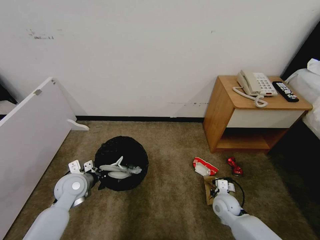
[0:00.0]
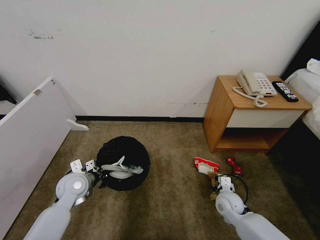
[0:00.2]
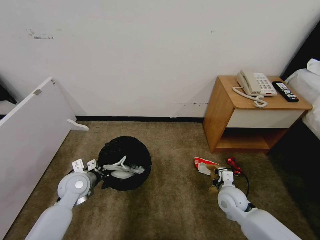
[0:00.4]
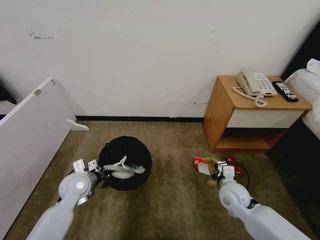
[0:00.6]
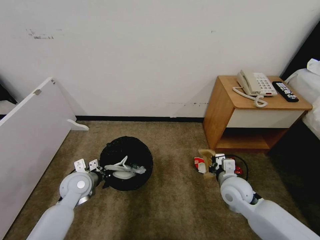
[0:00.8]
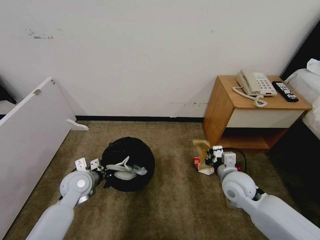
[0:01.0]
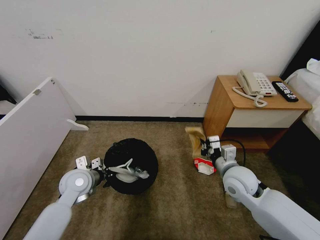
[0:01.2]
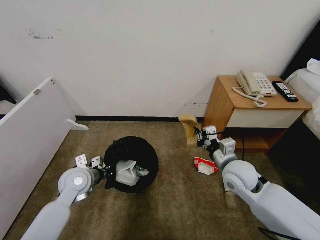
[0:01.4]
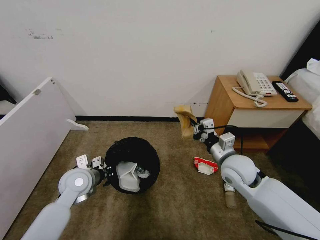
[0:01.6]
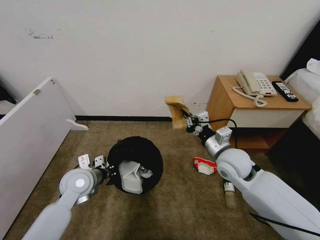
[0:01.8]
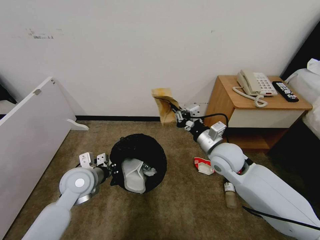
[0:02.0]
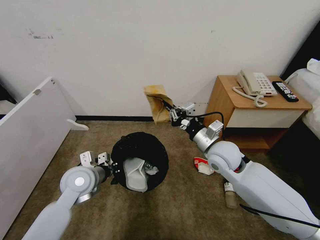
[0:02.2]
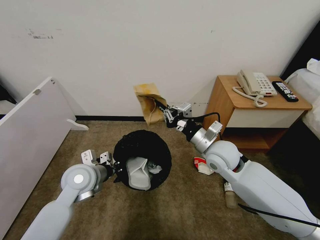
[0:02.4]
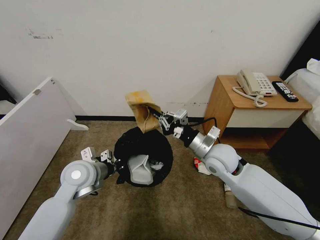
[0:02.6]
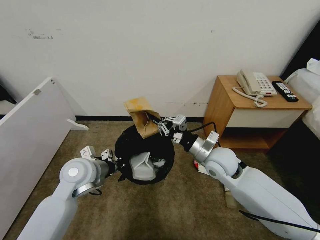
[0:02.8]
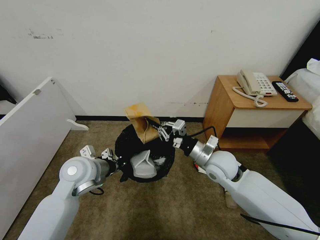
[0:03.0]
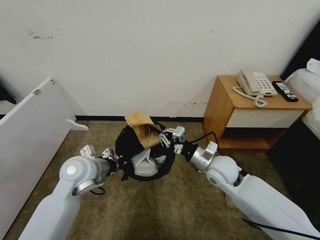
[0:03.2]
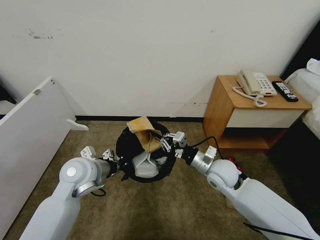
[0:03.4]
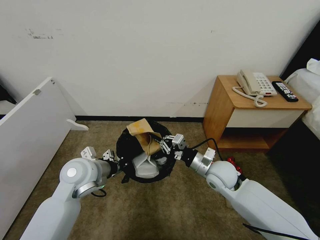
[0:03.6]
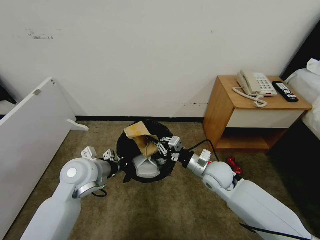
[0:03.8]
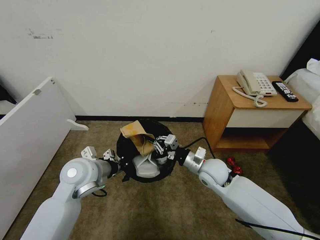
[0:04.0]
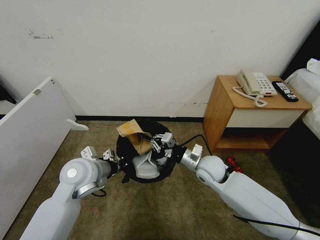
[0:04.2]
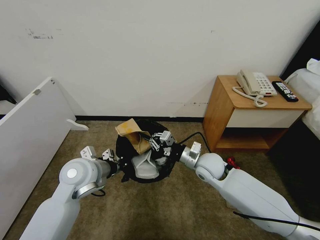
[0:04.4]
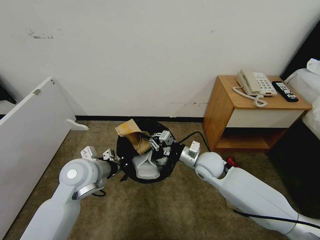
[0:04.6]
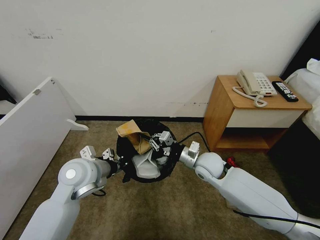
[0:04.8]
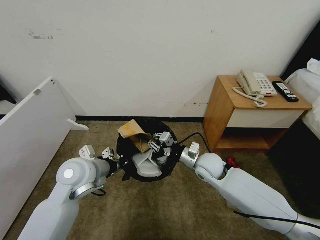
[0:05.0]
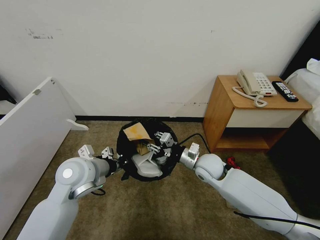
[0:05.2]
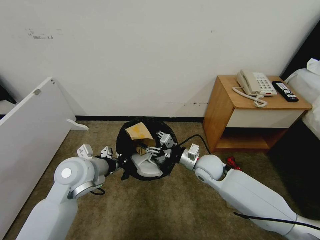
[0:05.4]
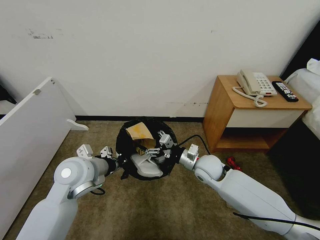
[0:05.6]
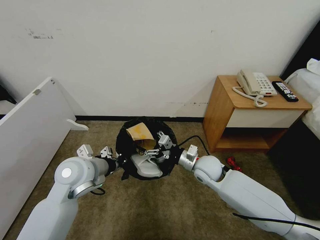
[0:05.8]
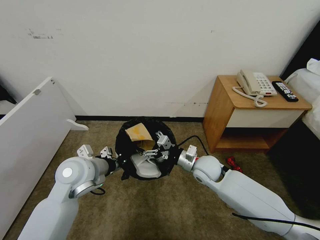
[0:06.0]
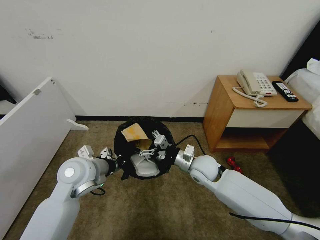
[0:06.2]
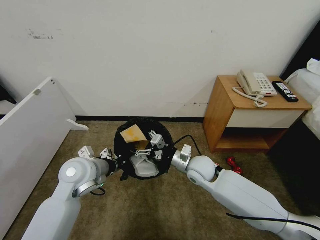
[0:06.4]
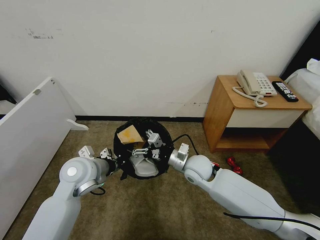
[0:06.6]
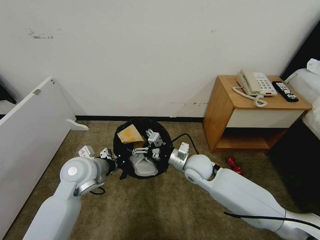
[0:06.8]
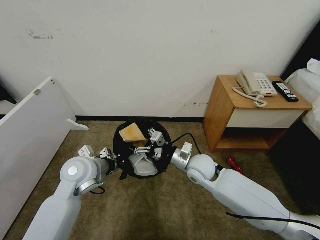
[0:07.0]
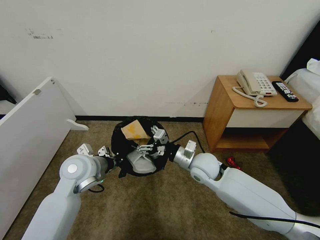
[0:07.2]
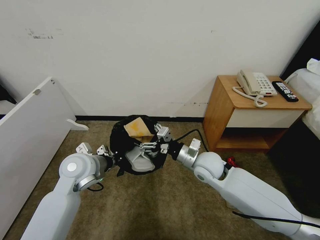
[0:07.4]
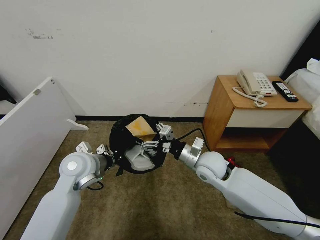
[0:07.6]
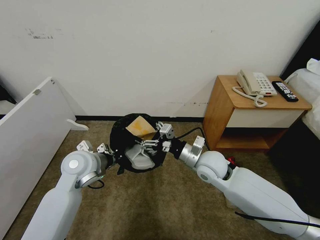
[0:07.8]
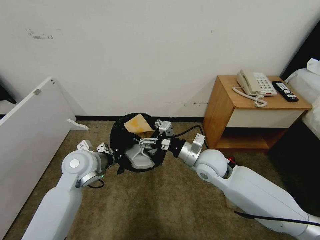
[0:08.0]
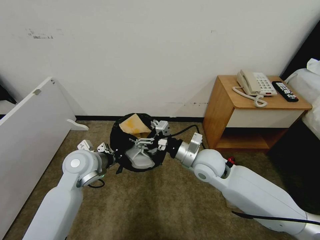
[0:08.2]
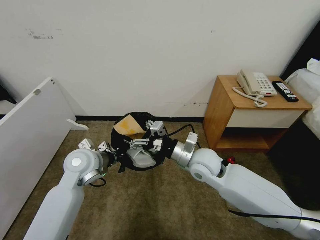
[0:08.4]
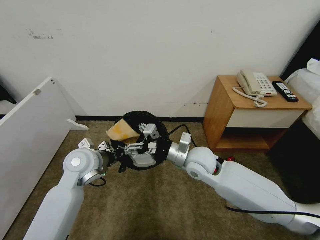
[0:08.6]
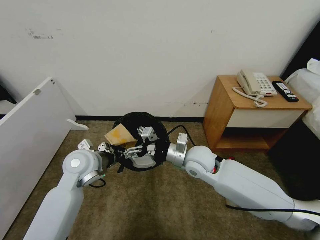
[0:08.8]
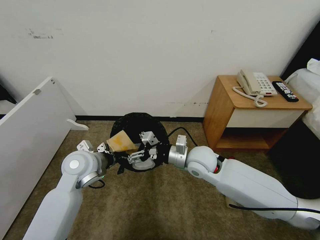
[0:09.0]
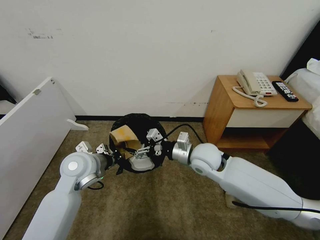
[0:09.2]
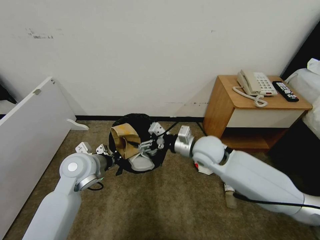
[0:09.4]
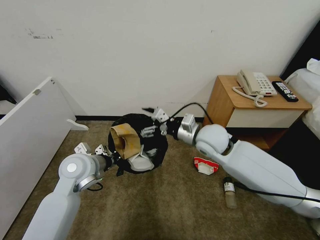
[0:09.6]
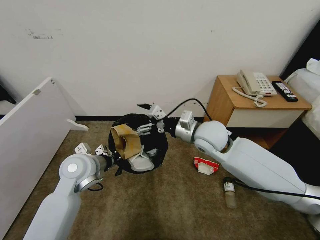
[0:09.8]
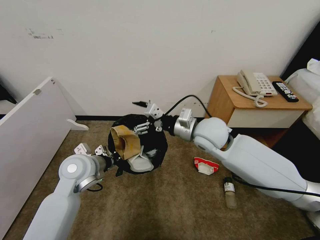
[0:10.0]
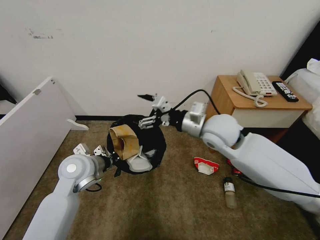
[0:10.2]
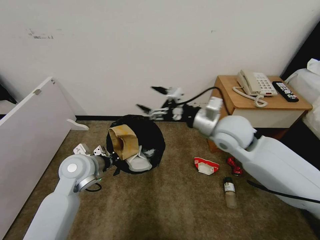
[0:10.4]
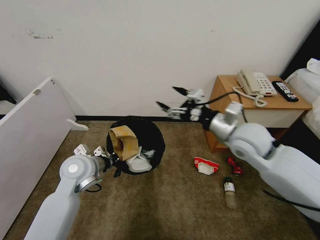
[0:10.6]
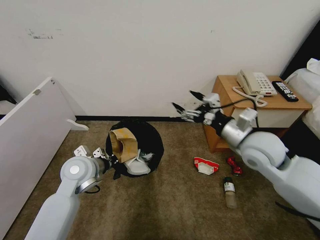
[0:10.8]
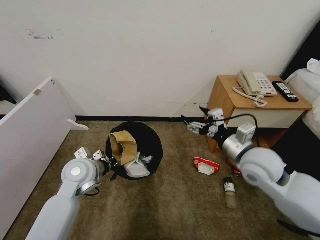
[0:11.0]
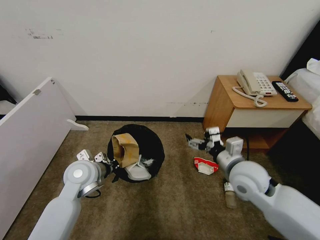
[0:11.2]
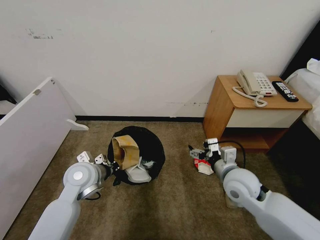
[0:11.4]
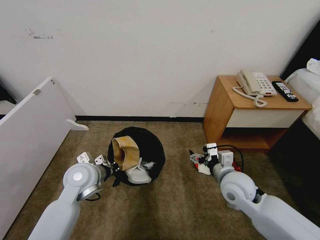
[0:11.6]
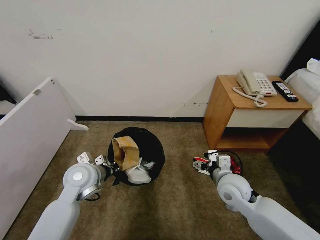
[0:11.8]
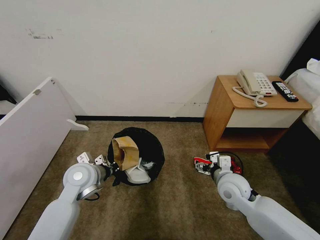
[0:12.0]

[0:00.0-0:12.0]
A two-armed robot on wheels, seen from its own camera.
Task of the whole recording: Pick up the trash bin, then pick up the garbage from the floor and place it into the trash bin.
0:00.0 to 0:01.6: The right gripper heads upward, covering some 20 cm.
0:01.6 to 0:03.0: The right gripper moves to the left, some 5 cm. The left gripper is displaced upward by roughly 5 cm.
0:03.0 to 0:04.4: The right gripper changes place by approximately 5 cm.
0:04.4 to 0:06.0: The right gripper opens.
0:06.0 to 0:07.6: There are only small adjustments of the grippers.
0:07.6 to 0:09.0: There are only small adjustments of the grippers.
0:09.0 to 0:10.4: The right gripper goes roughly 15 cm upward and to the right.
0:10.4 to 0:12.0: The right gripper goes about 20 cm downward.

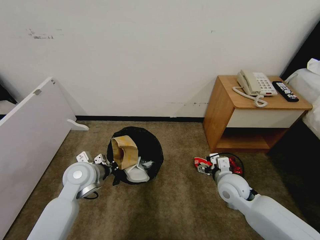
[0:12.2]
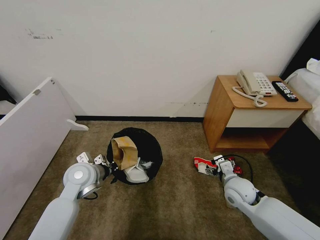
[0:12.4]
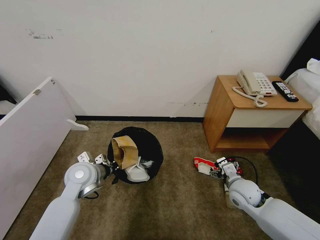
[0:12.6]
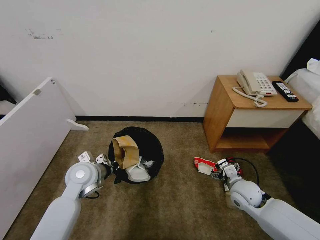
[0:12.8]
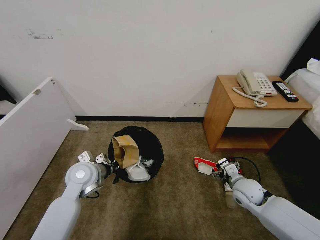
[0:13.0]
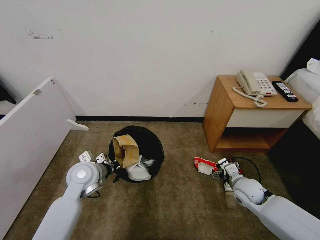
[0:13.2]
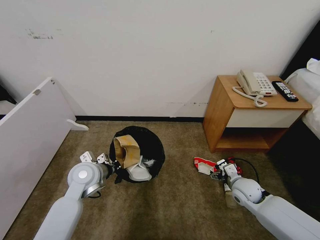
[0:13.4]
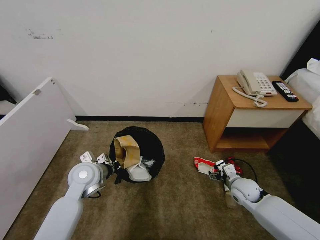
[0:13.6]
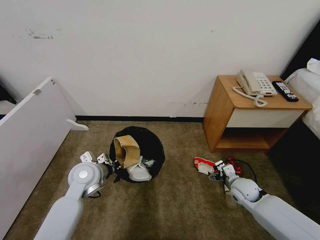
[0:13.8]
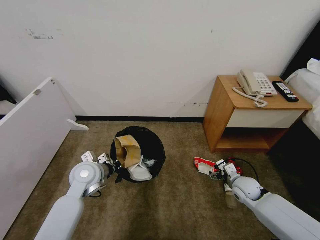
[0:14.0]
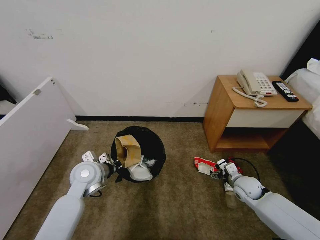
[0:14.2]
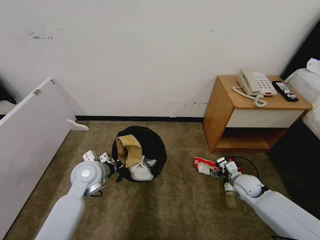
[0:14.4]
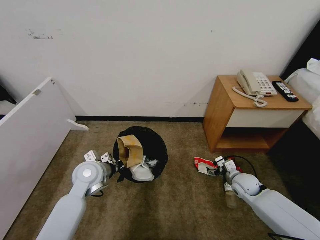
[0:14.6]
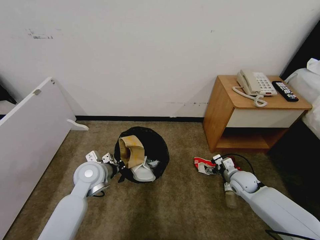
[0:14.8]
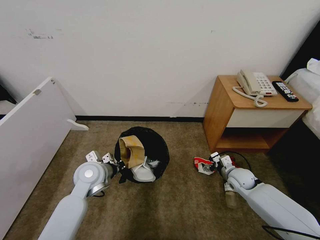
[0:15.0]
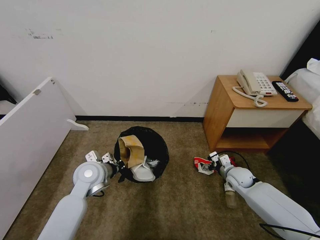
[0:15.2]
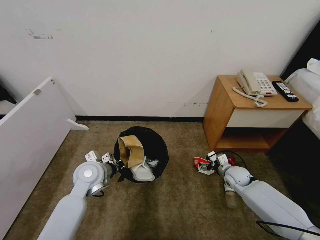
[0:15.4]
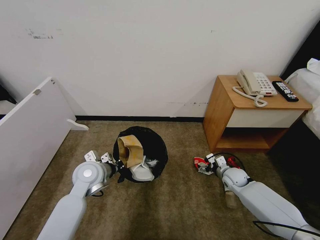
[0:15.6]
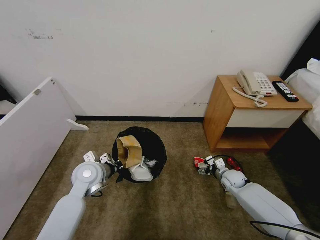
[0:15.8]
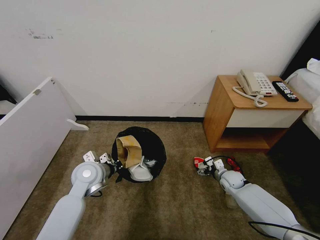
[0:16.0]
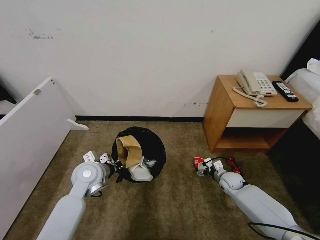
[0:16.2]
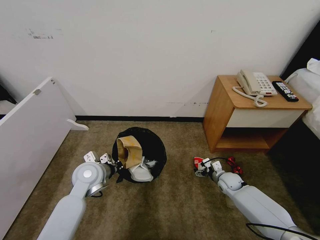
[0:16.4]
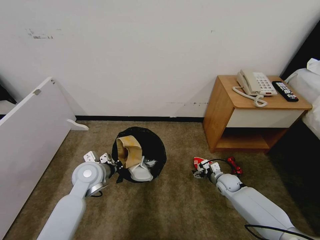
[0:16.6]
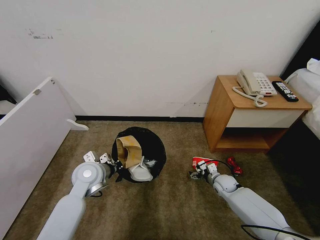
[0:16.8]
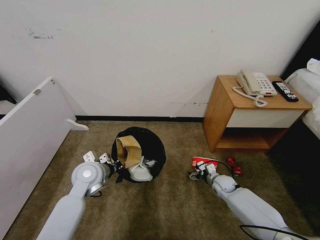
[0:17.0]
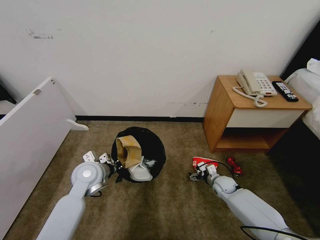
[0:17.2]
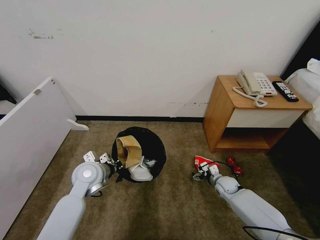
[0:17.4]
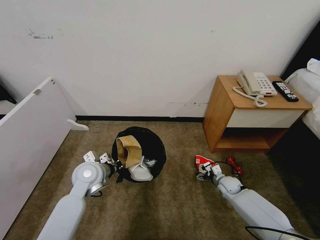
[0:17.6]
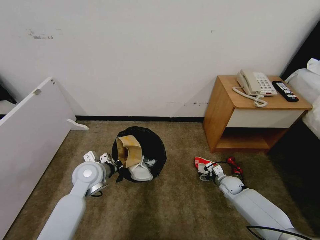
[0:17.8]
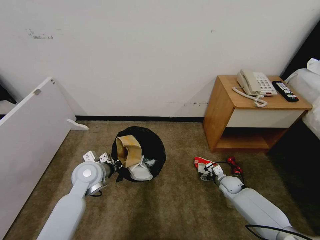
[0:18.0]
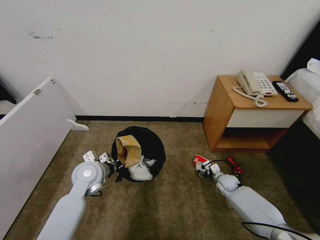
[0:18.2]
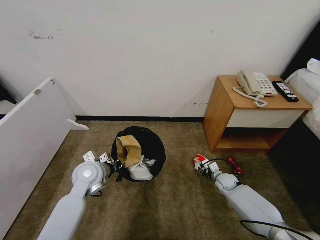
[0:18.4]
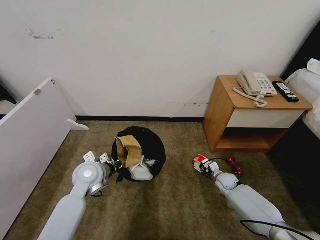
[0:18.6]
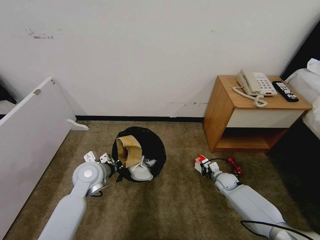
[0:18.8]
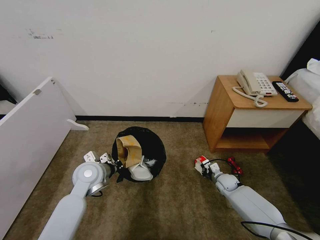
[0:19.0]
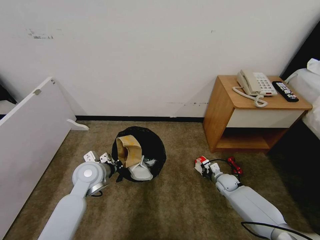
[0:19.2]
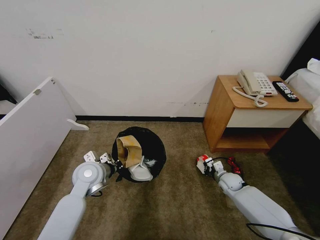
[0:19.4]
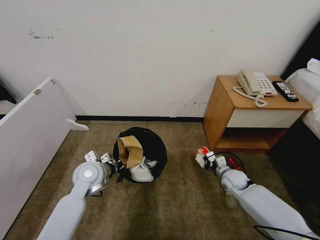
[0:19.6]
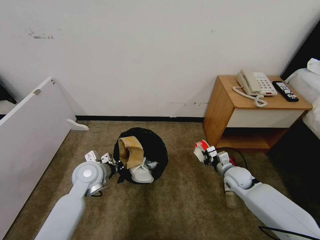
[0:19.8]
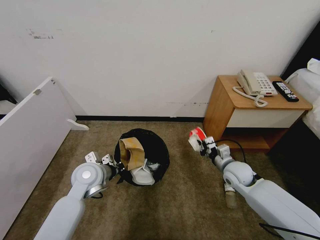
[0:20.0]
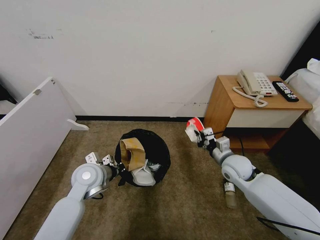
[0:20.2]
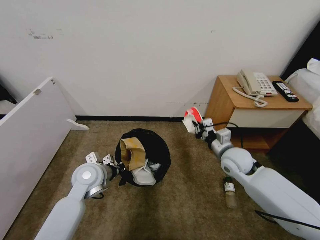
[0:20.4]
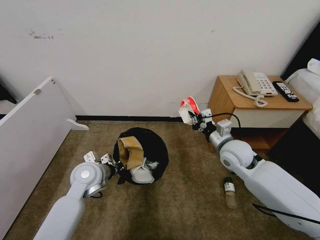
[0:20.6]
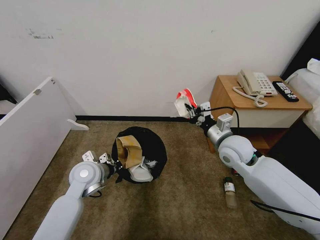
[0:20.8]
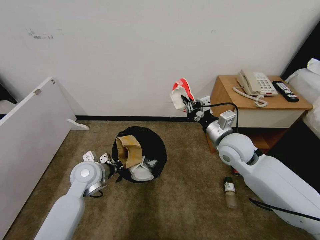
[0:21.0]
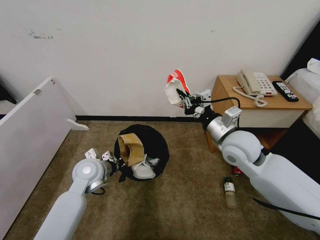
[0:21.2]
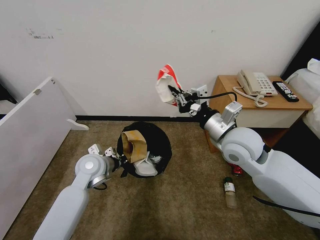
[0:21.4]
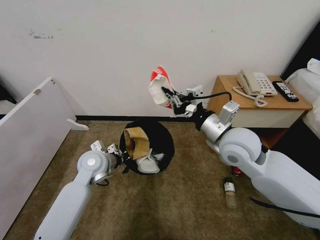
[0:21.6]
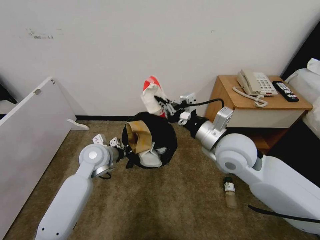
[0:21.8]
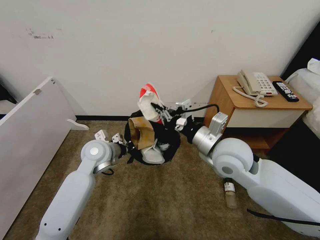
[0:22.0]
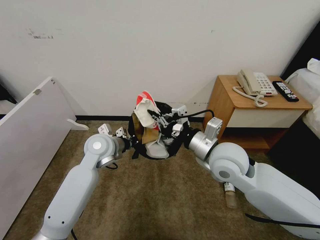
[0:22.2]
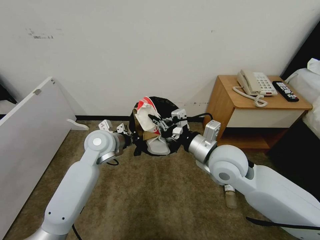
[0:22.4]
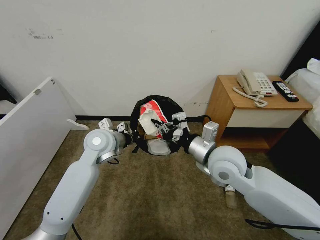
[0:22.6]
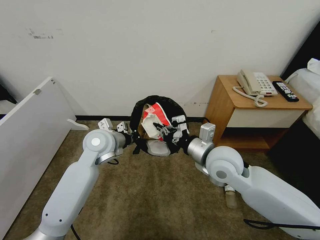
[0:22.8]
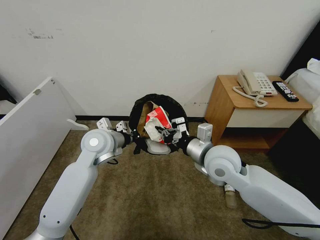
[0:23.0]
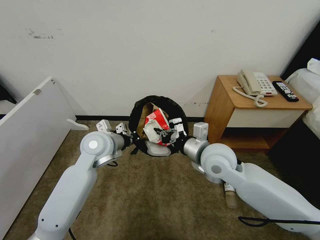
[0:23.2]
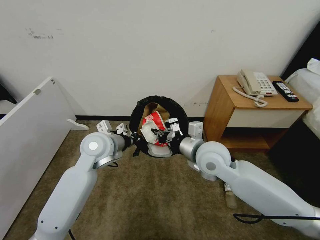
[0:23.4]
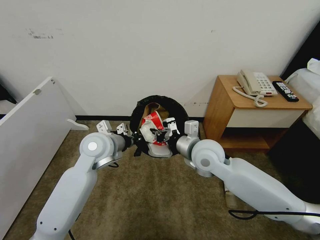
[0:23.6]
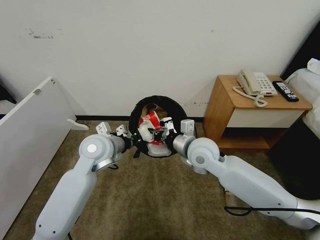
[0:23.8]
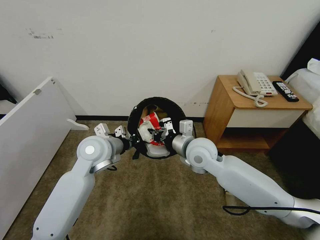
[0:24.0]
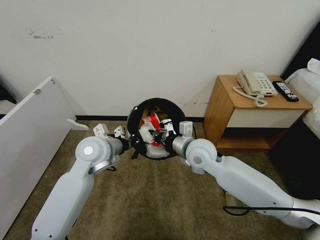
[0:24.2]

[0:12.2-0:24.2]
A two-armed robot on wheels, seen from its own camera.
Task of the whole recording: Pick up the trash bin, then pick up the garbage from the floor and place it into the trash bin.
0:12.2 to 0:13.8: The right gripper goes approximately 10 cm to the right and downward.
0:13.8 to 0:15.2: The right gripper travels forward by approximately 5 cm.
0:15.2 to 0:16.6: The right gripper moves downward, some 5 cm.
0:16.6 to 0:18.2: The grippers make only small movements.
0:18.2 to 0:19.8: The right gripper shifts about 10 cm upward, and closes up.
0:19.8 to 0:21.2: The right gripper goes about 20 cm upward.
0:21.2 to 0:22.6: The right gripper ends up roughly 5 cm from where it was, while the left gripper goes roughly 10 cm upward and forward.
0:22.6 to 0:24.2: The right gripper travels forward by about 5 cm.
